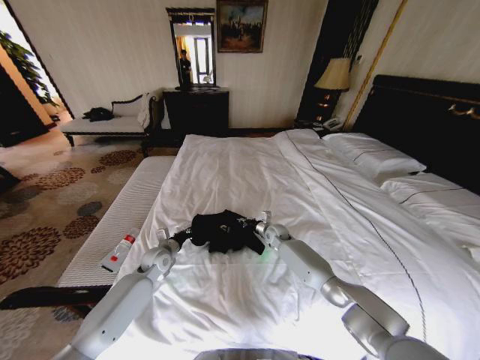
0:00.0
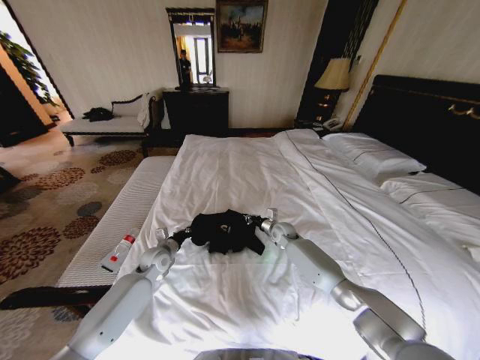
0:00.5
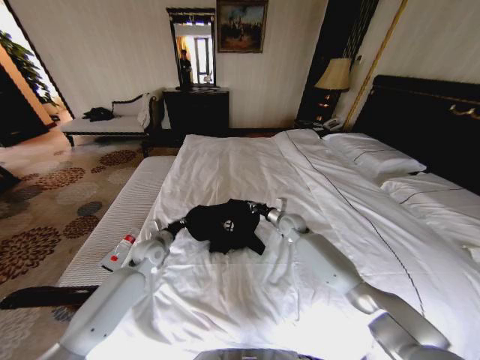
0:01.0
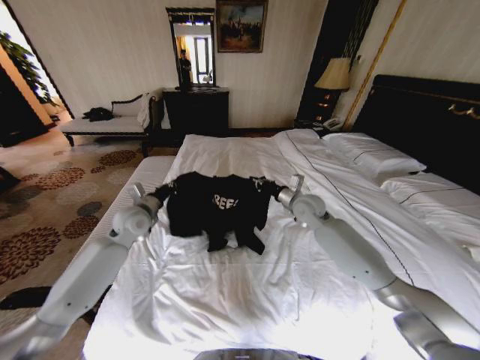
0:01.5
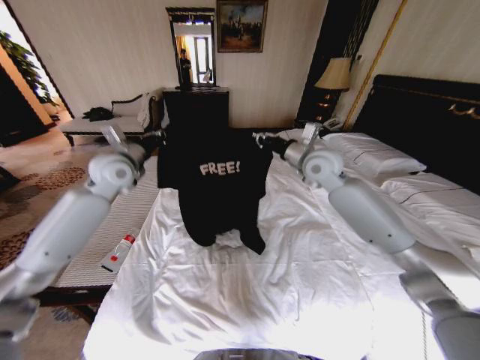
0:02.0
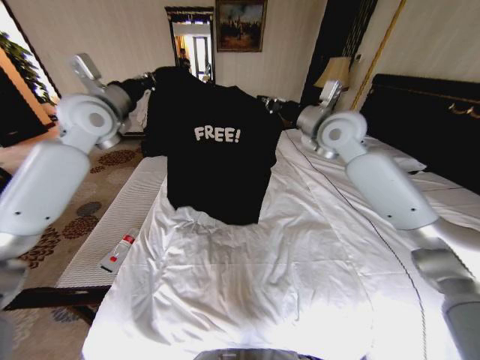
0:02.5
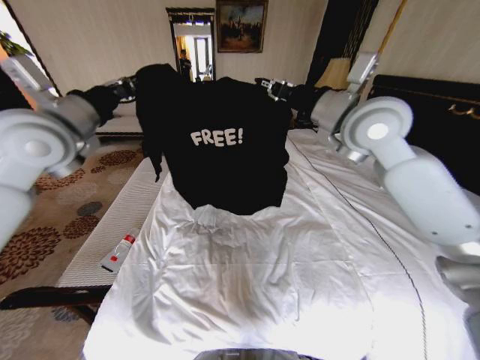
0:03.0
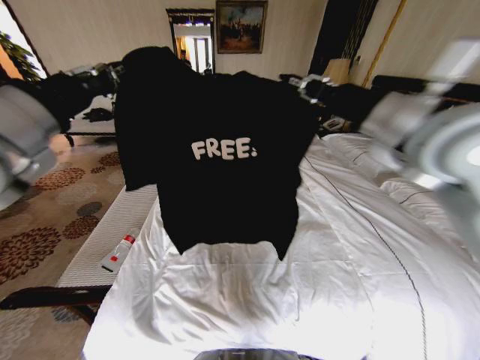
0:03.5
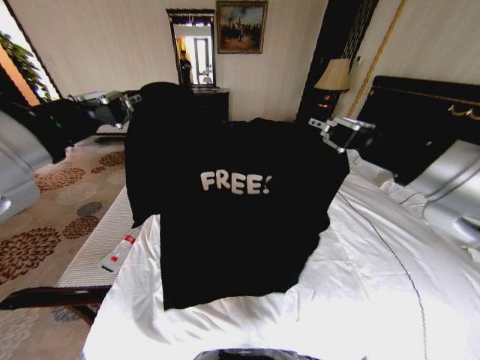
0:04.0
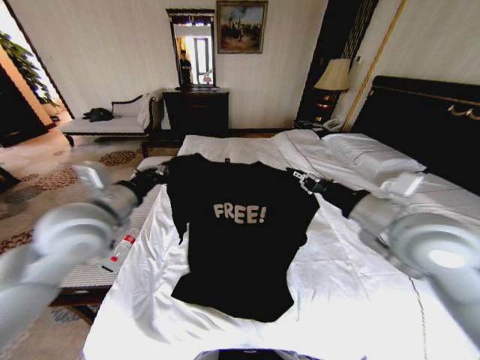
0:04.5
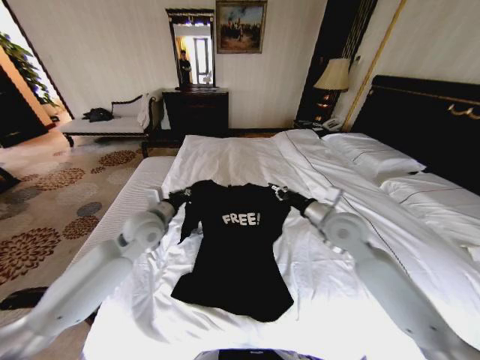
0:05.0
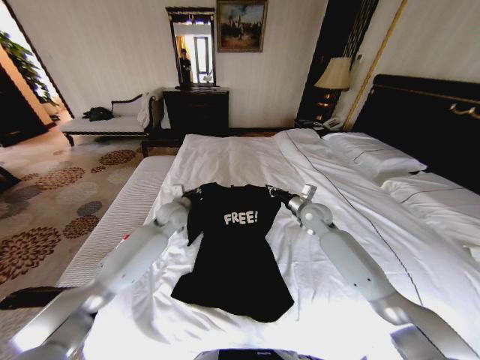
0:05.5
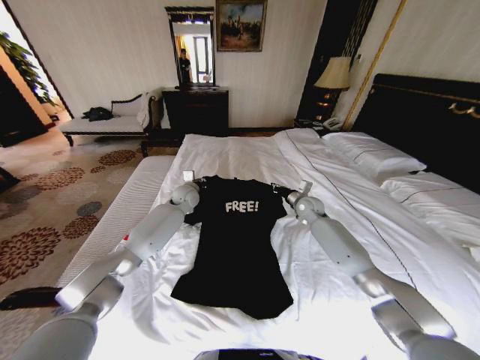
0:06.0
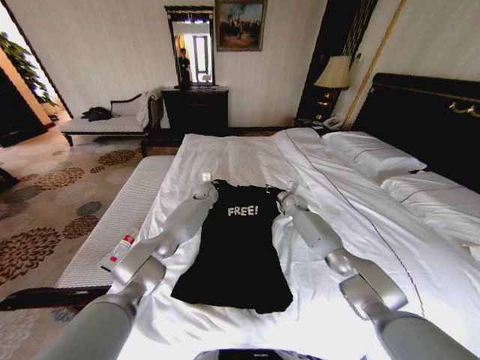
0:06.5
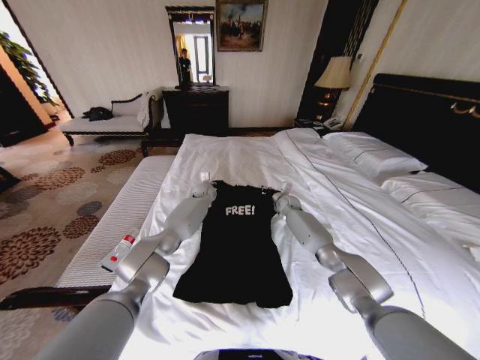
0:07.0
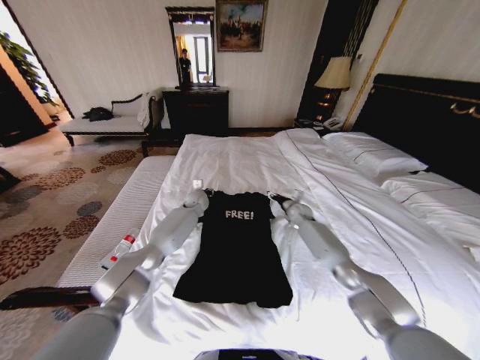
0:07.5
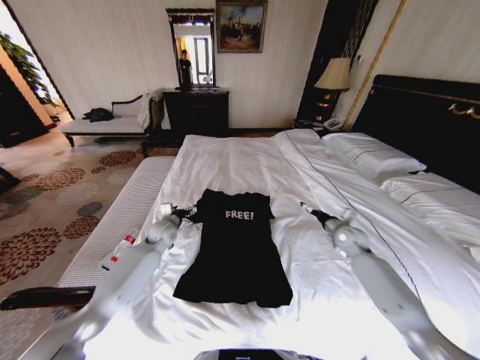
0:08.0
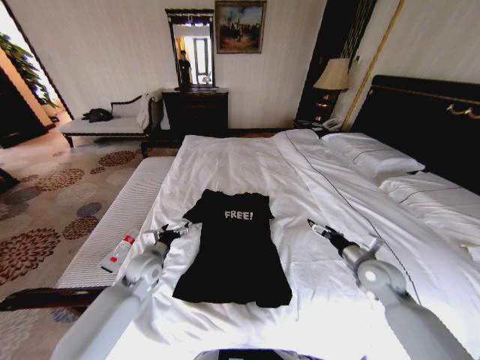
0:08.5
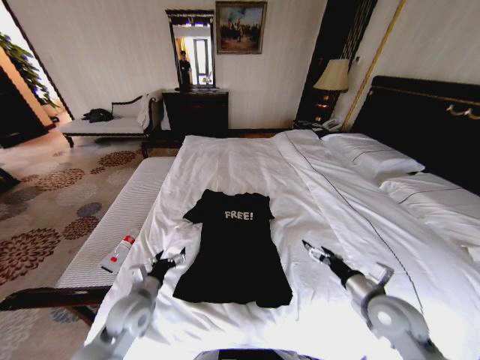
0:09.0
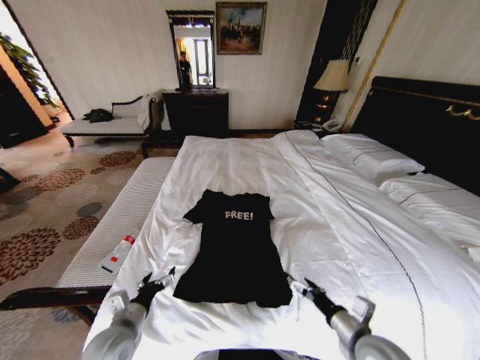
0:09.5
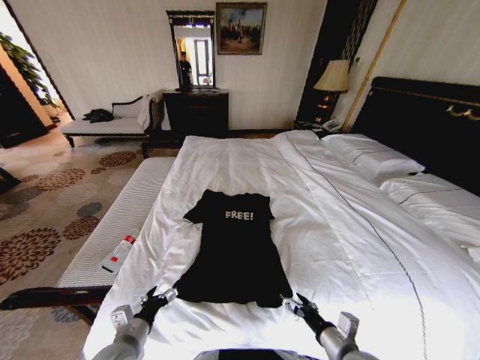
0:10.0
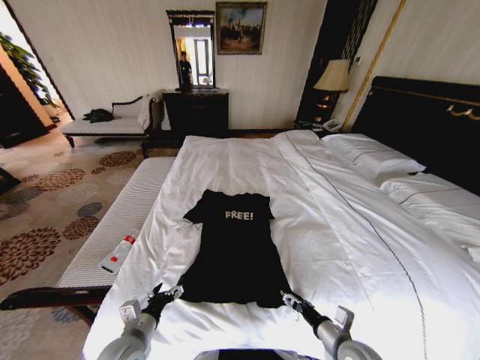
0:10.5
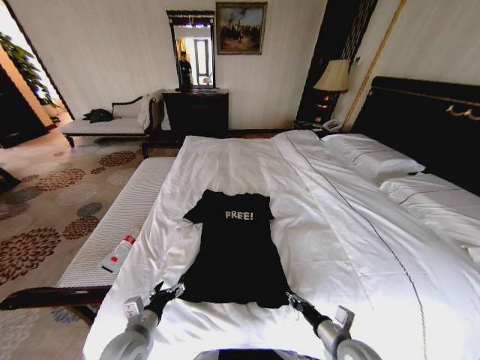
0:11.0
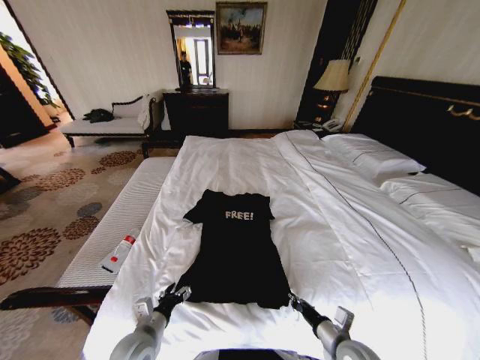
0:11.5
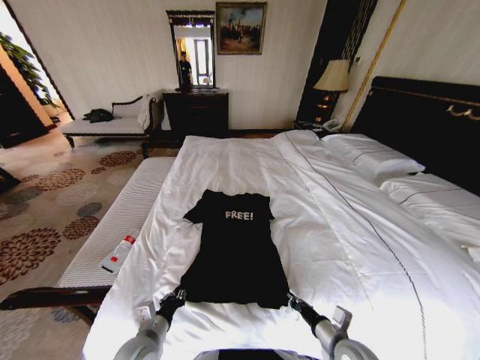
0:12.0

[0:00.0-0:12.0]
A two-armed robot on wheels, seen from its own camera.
Task of the whole recording: Fold the clothes on the bed.
0:00.0 to 0:02.0: The two grippers go about 35 cm upward.
0:02.0 to 0:04.0: The right gripper shifts approximately 30 cm backward. The left gripper heads backward and upward, covering roughly 30 cm.
0:04.0 to 0:06.0: The grippers both shift forward and downward by about 50 cm.
0:06.0 to 0:08.0: The right gripper moves to the right and backward, about 15 cm, and opens its fingers; the left gripper travels backward, downward and to the left by about 15 cm, and opens up.
0:08.0 to 0:10.0: The grippers both shift backward by approximately 35 cm.
0:10.0 to 0:12.0: The right gripper closes its fingers. Meanwhile the left gripper closes its fingers.

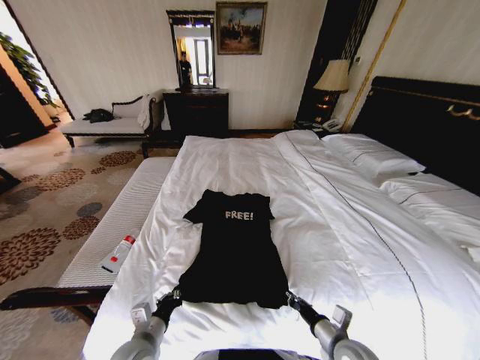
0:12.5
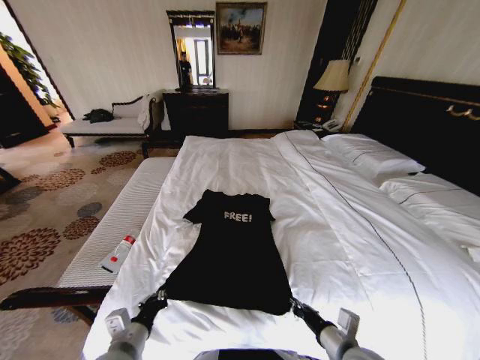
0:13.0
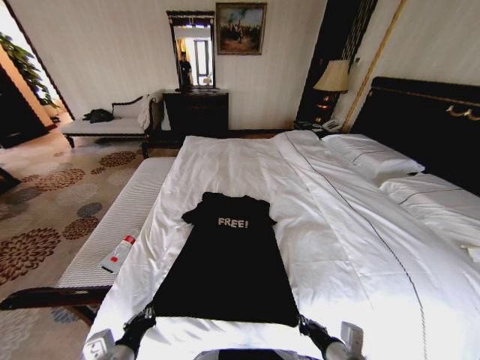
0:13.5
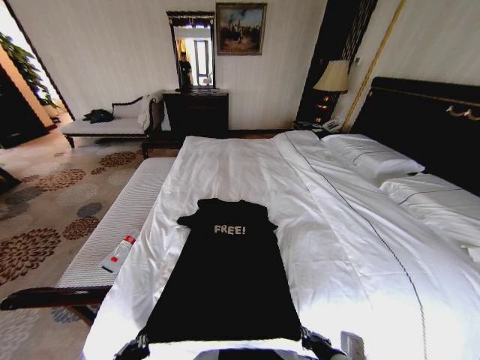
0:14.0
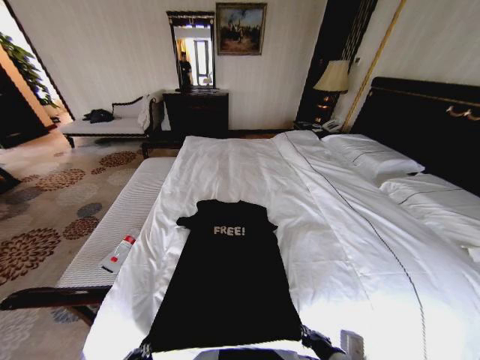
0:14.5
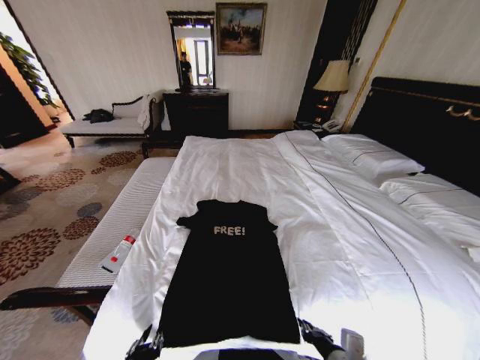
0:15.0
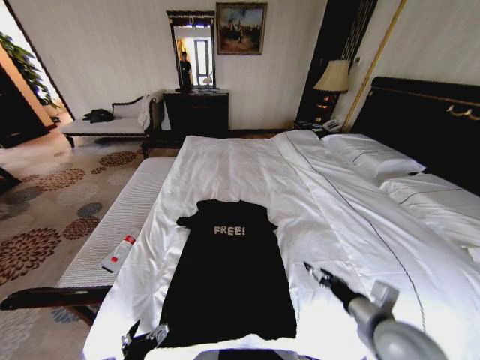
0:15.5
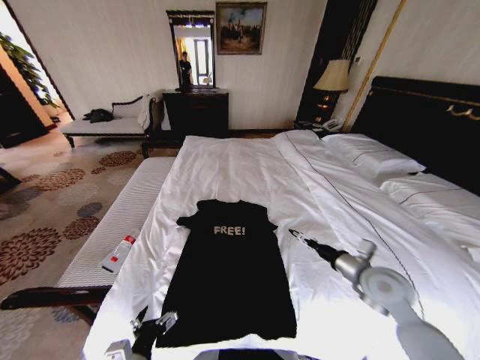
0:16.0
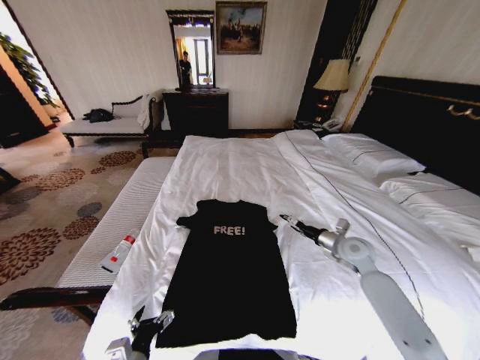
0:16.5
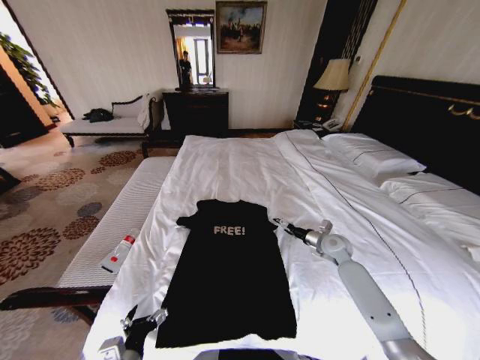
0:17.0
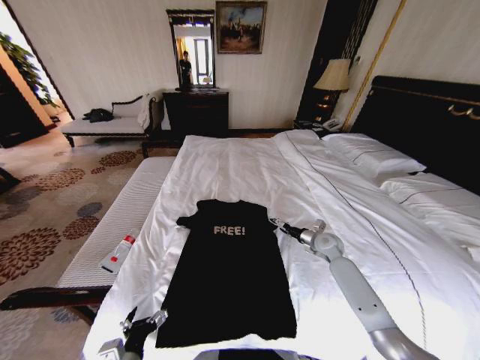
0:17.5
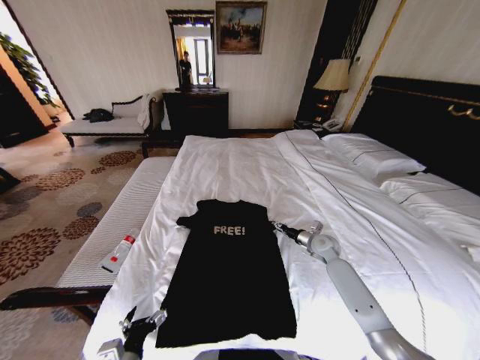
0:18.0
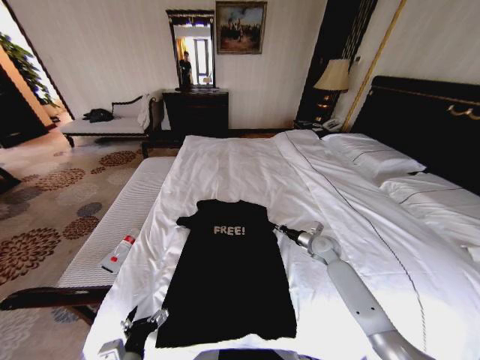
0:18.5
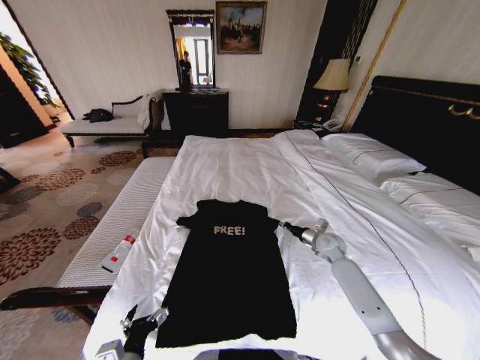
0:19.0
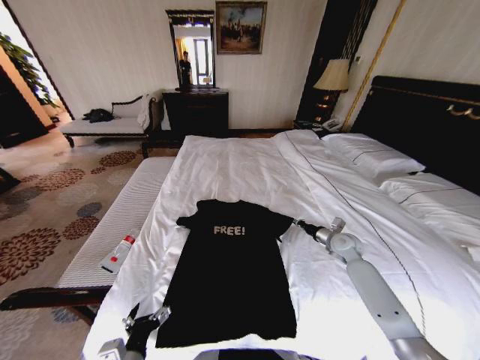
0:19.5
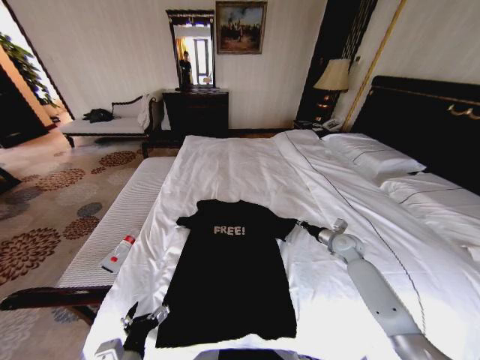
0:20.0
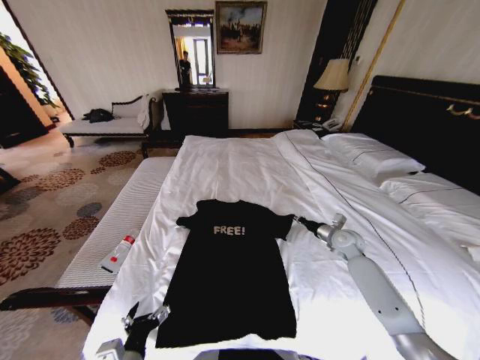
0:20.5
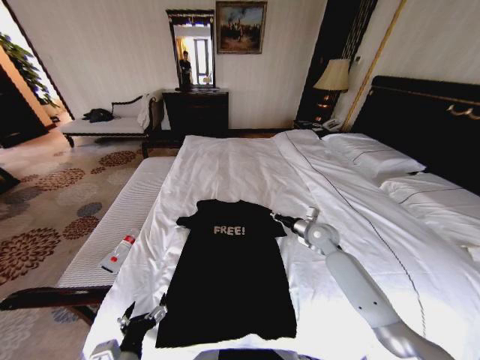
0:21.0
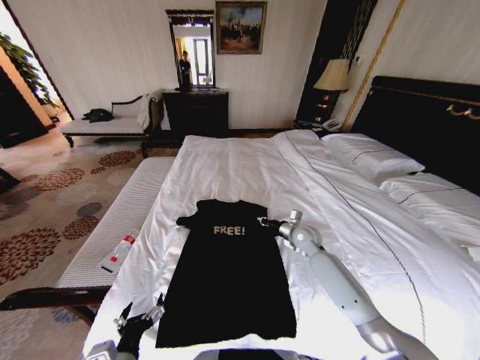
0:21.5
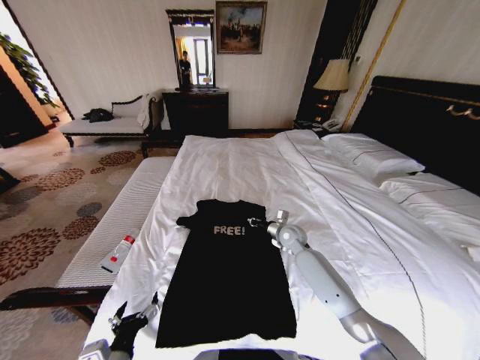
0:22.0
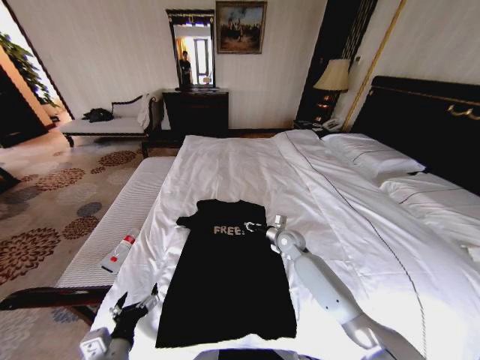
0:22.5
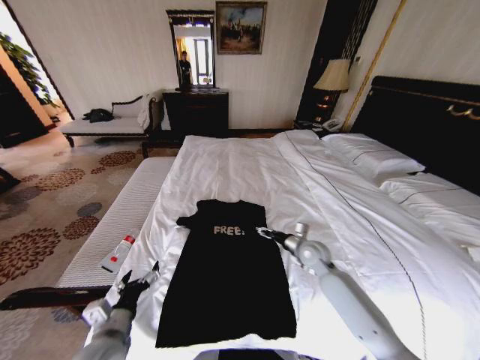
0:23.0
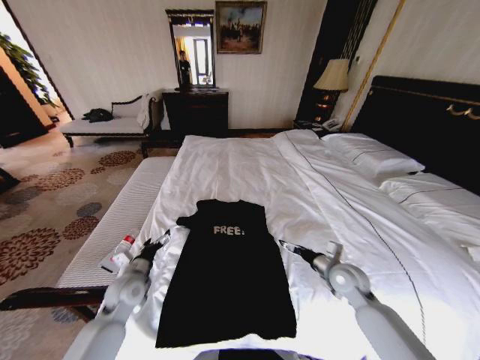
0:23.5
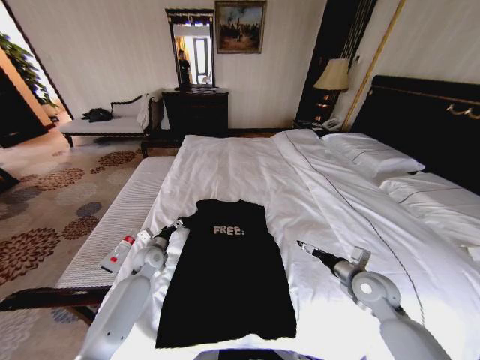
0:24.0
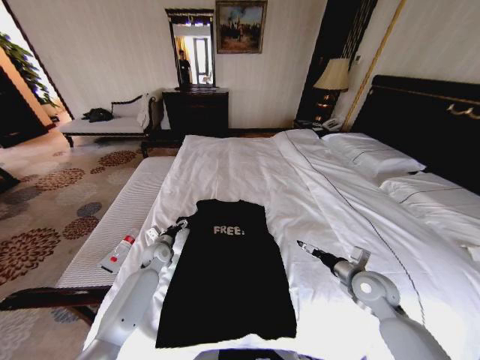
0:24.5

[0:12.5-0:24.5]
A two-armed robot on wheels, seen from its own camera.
Task of the whole recording: Fold the clothes on the bed.
0:12.5 to 0:14.5: The right gripper moves backward and upward, some 10 cm. The left gripper moves backward, approximately 15 cm.
0:14.5 to 0:16.5: The left gripper travels forward by approximately 5 cm, and opens its fingers. Meanwhile the right gripper shifts some 30 cm forward, and opens its fingers.
0:16.5 to 0:18.5: The right gripper is displaced downward and forward by roughly 10 cm, and closes.
0:18.5 to 0:20.5: The right gripper heads to the right, covering about 5 cm.
0:20.5 to 0:22.5: The right gripper shifts some 20 cm to the left.
0:22.5 to 0:24.5: The right gripper is displaced backward and to the right by approximately 25 cm, and opens, while the left gripper heads forward, covering about 35 cm.

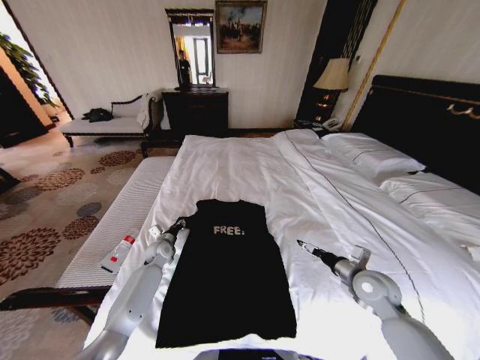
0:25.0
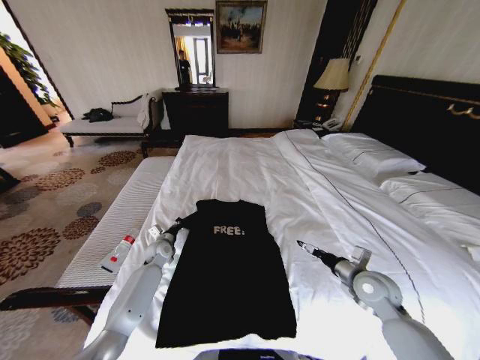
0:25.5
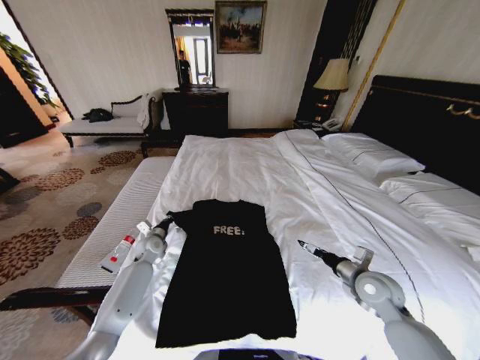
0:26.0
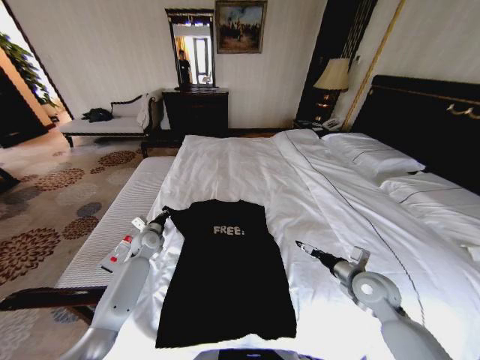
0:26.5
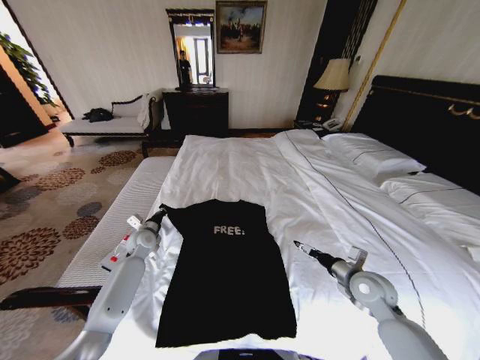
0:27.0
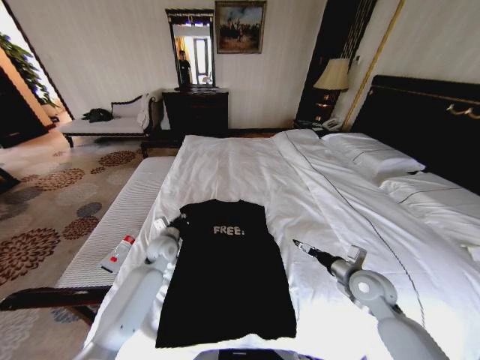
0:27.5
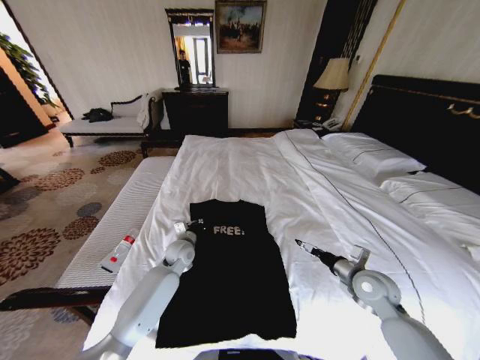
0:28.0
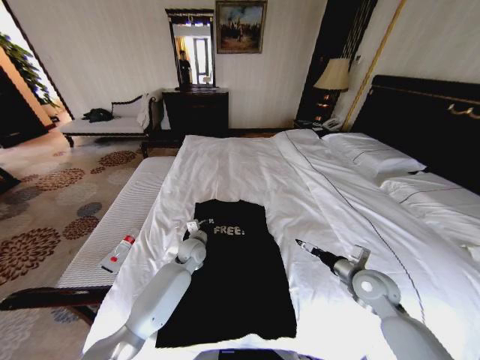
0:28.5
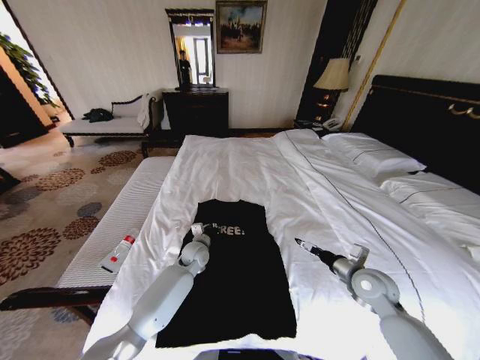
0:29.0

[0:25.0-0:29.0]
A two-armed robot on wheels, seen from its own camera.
Task of the whole recording: Fold the clothes on the bed.
0:25.0 to 0:27.0: The left gripper shifts about 5 cm upward, and closes its fingers.
0:27.0 to 0:29.0: The left gripper heads to the right, covering about 20 cm.
